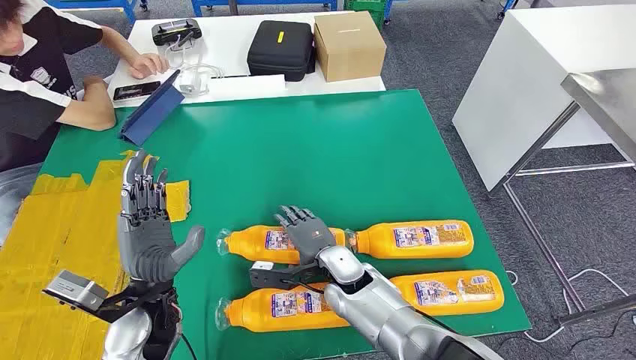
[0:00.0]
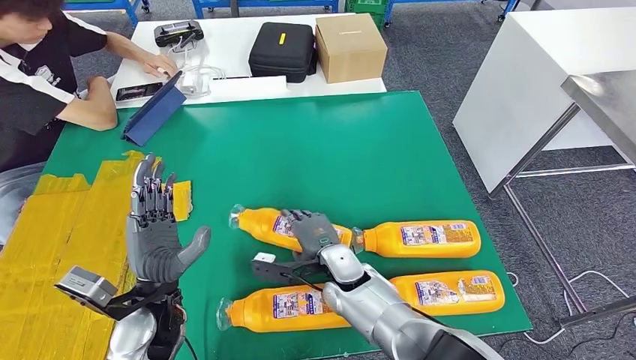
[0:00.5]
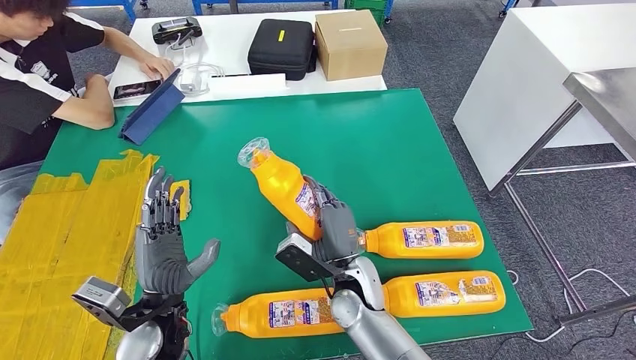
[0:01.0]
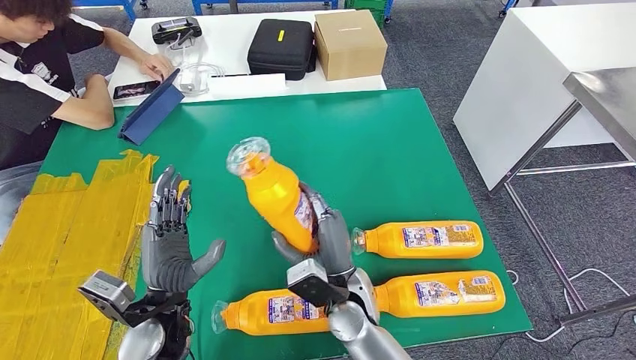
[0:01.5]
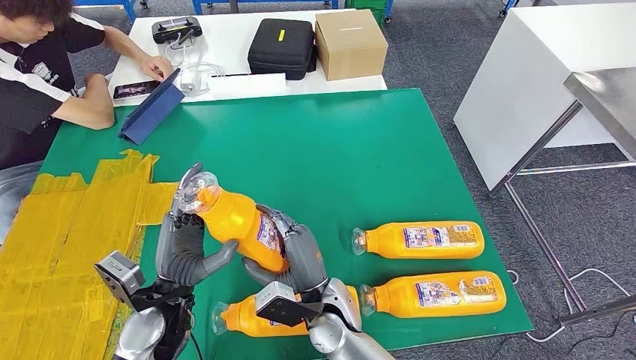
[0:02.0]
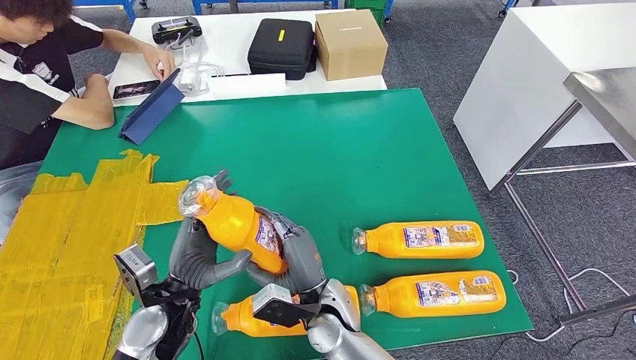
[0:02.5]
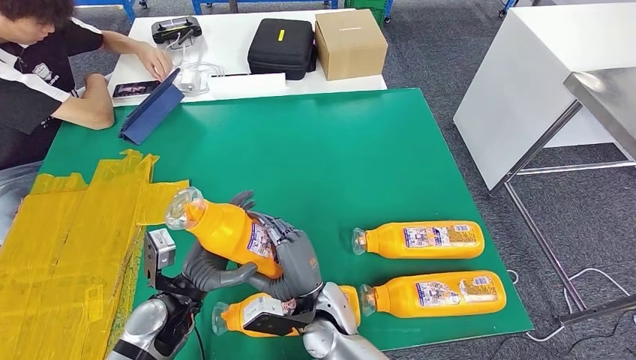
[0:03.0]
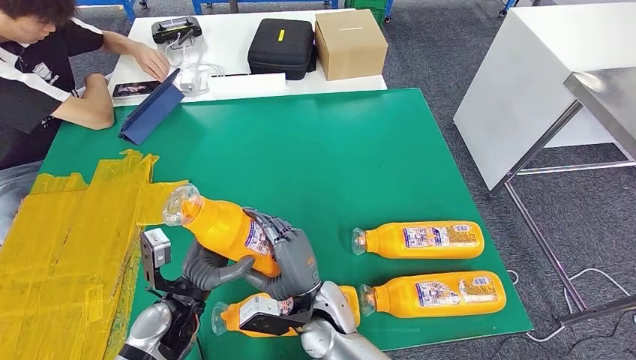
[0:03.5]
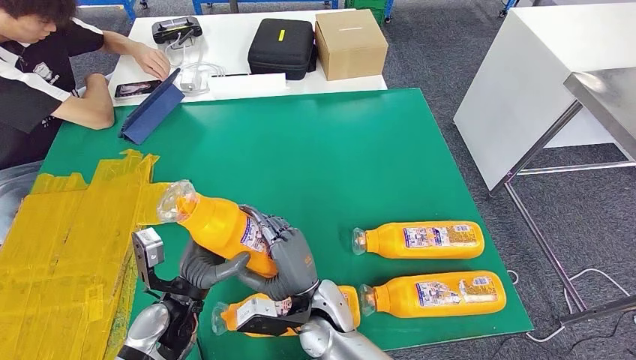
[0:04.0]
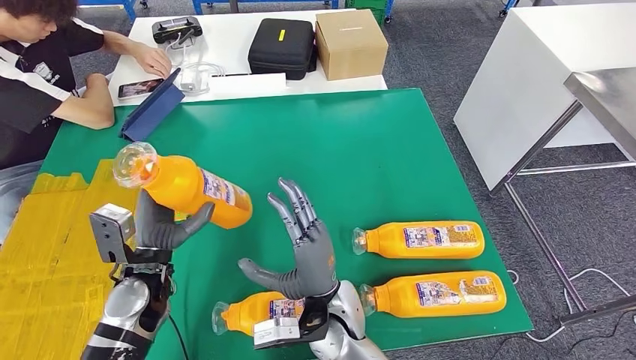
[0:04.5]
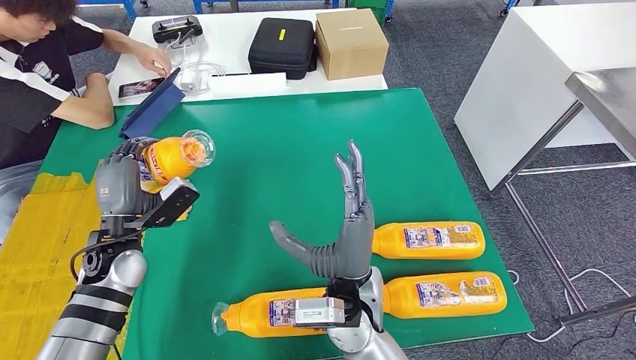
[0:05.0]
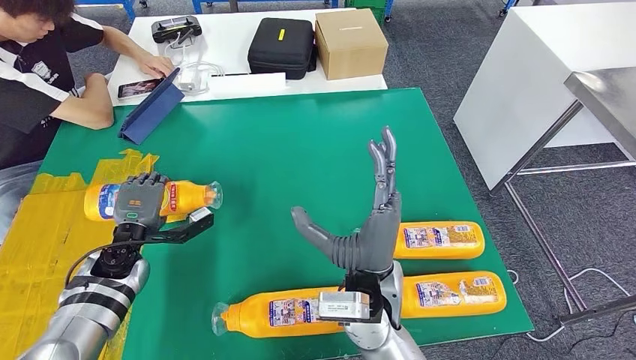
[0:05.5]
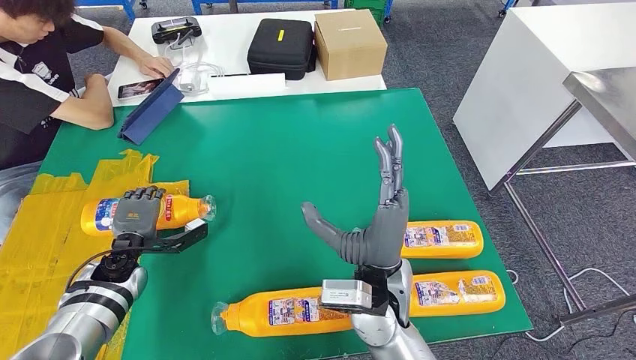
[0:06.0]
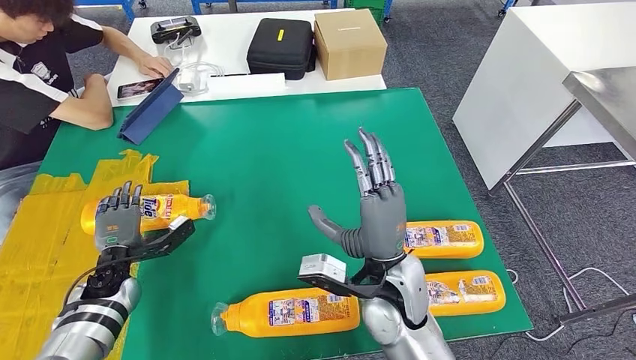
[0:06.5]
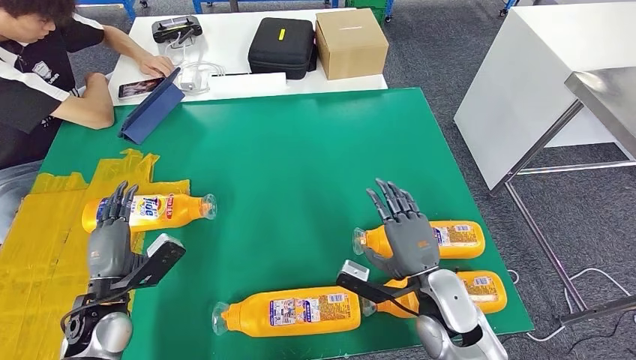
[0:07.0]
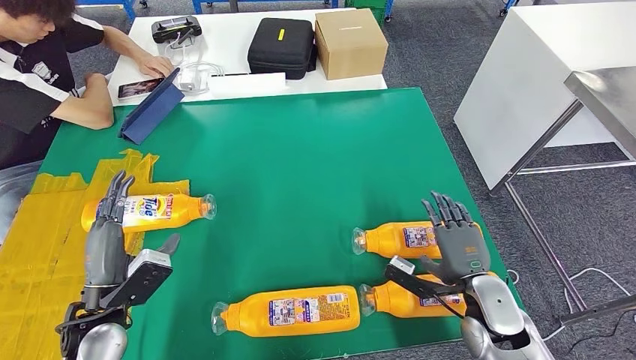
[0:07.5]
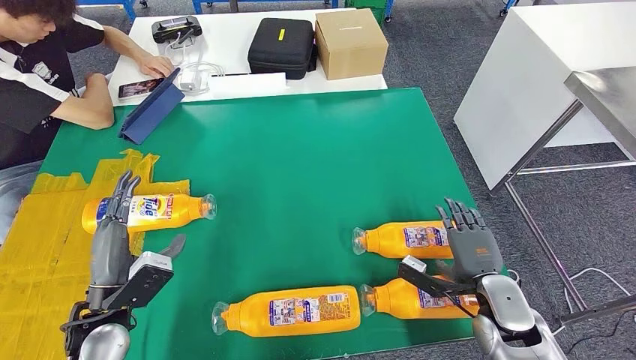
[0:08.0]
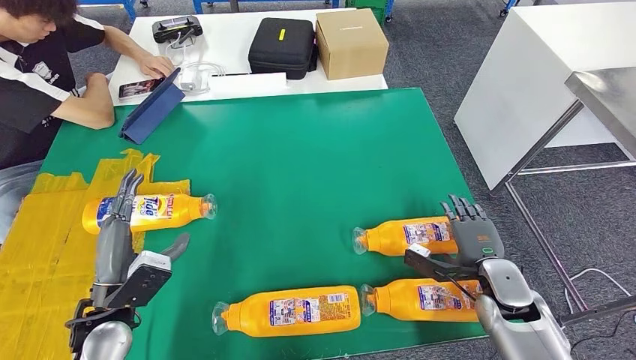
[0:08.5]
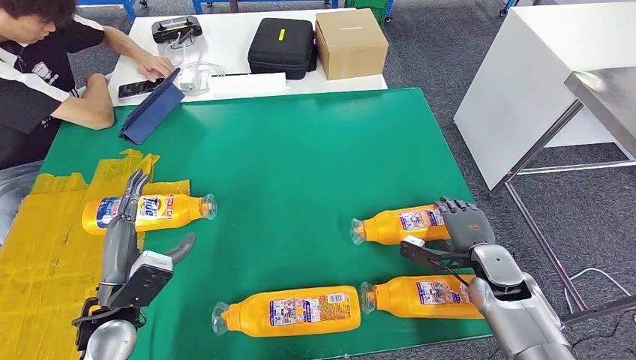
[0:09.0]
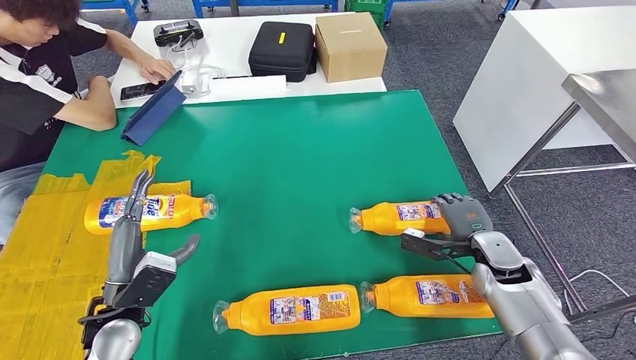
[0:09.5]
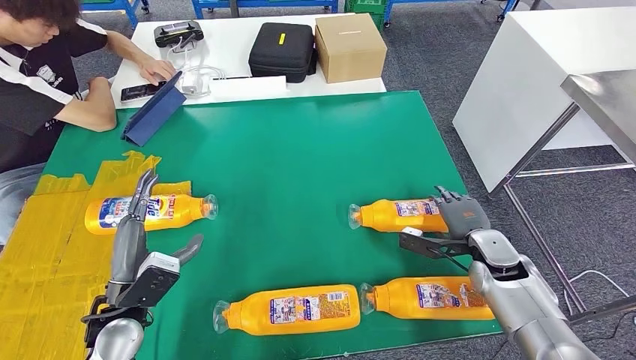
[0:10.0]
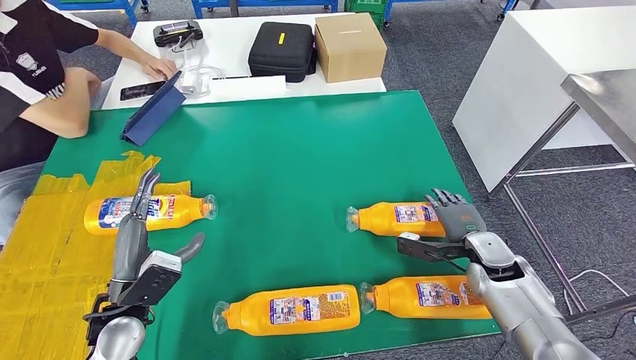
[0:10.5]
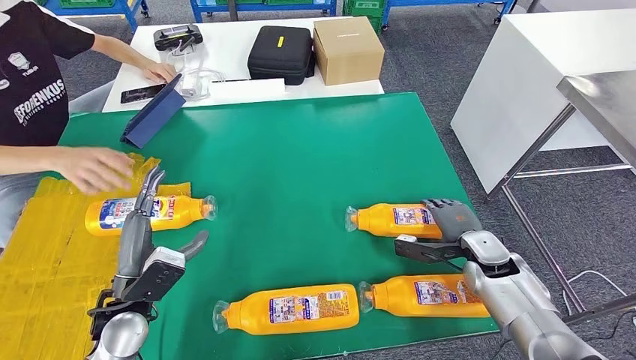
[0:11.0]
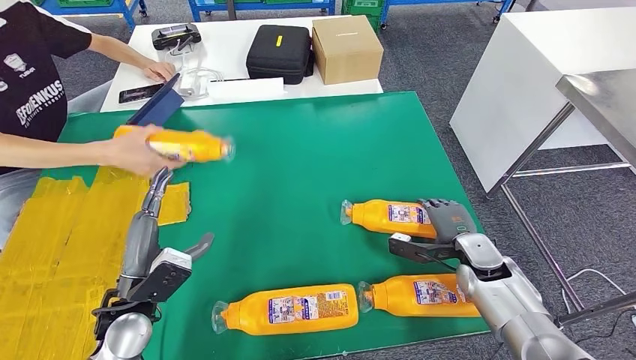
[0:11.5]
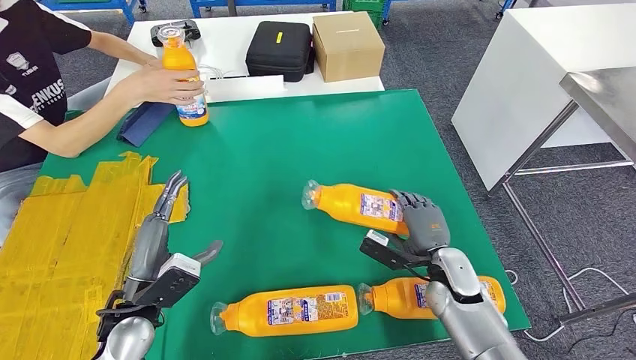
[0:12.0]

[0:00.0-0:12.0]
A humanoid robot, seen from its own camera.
Step, 0:00.0 to 0:02.0: Take the fast-moving consumer goods bottle from the table.
Step, 0:02.5 to 0:07.5: Flip the fast-moving consumer goods bottle to the front side.
0:04.0 to 0:06.0: The left hand travels to the left and forward by roughly 15 cm; the right hand shifts roughly 15 cm upward and to the right.
0:06.0 to 0:08.0: The left hand moves backward and upward, some 15 cm. Meanwhile the right hand is displaced to the right and downward by some 25 cm.

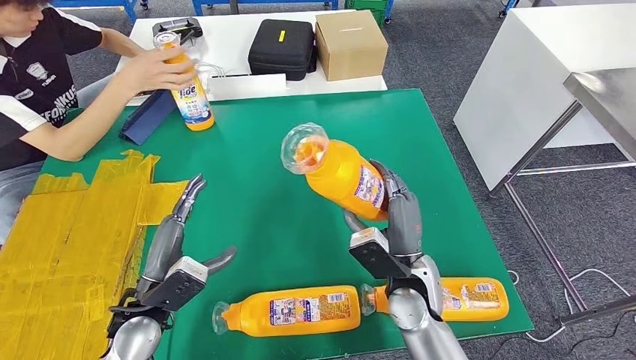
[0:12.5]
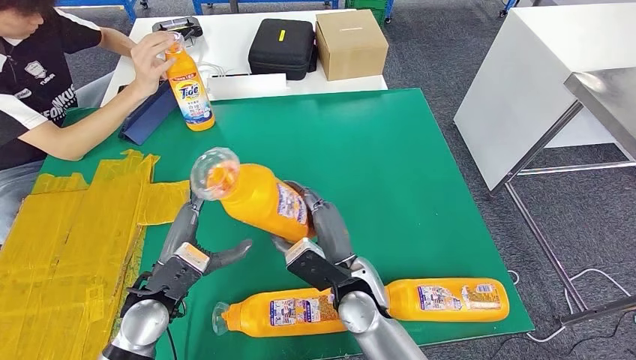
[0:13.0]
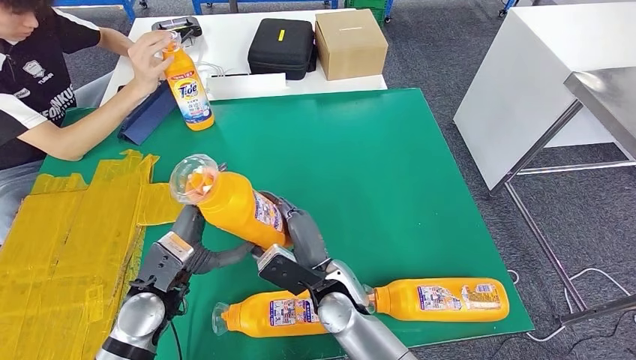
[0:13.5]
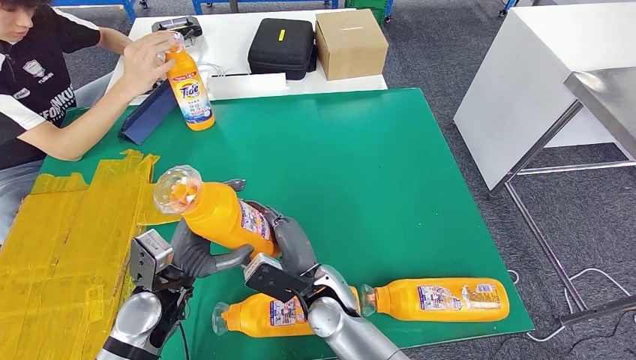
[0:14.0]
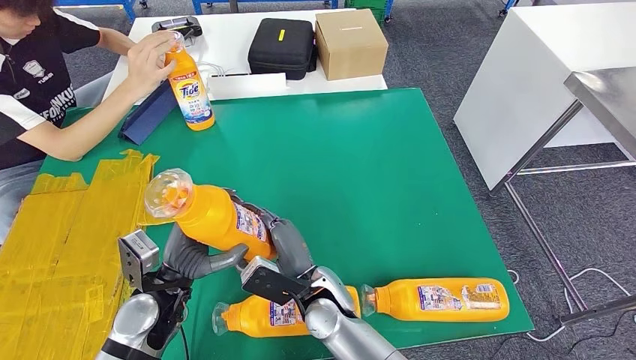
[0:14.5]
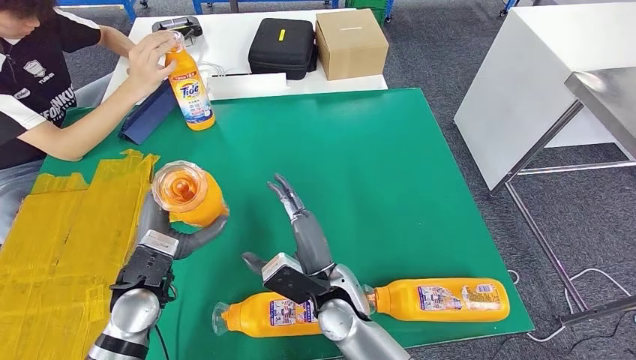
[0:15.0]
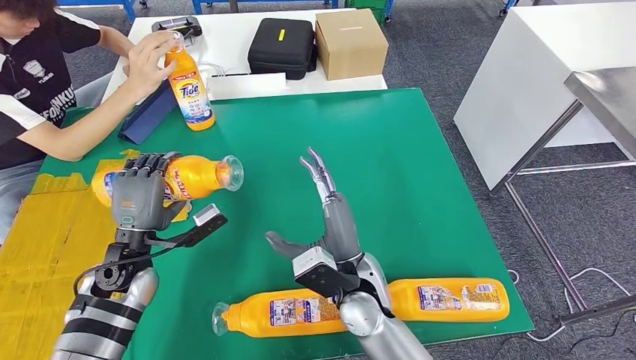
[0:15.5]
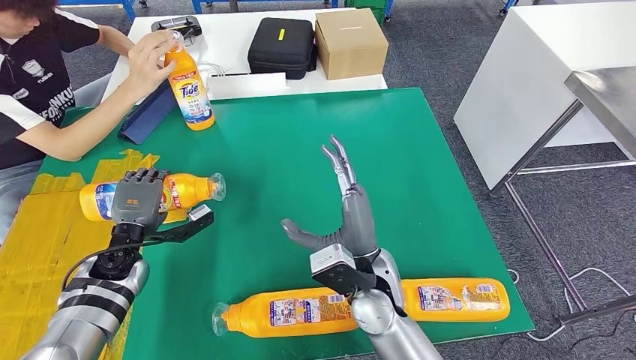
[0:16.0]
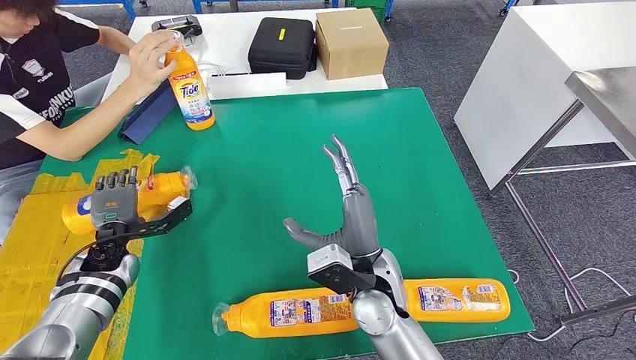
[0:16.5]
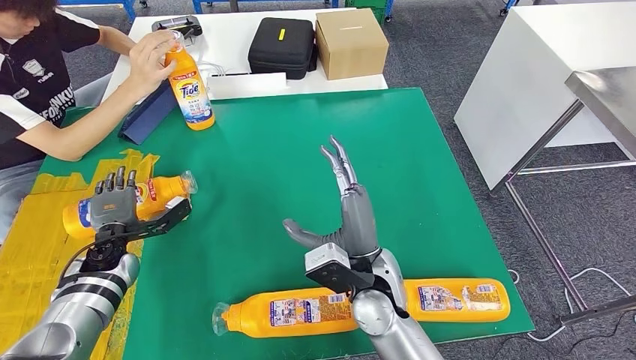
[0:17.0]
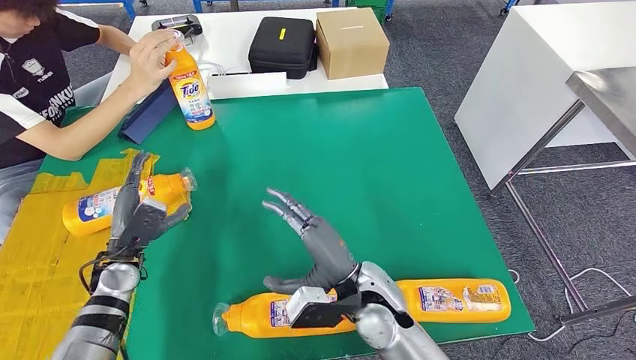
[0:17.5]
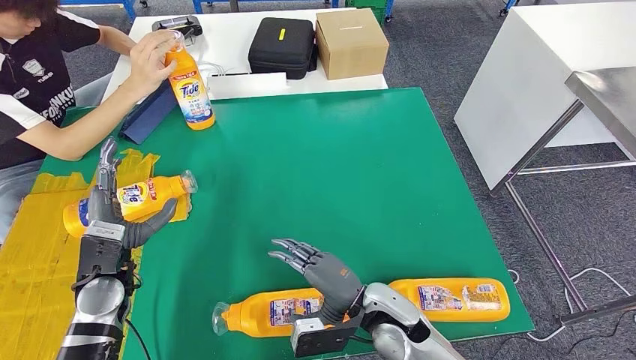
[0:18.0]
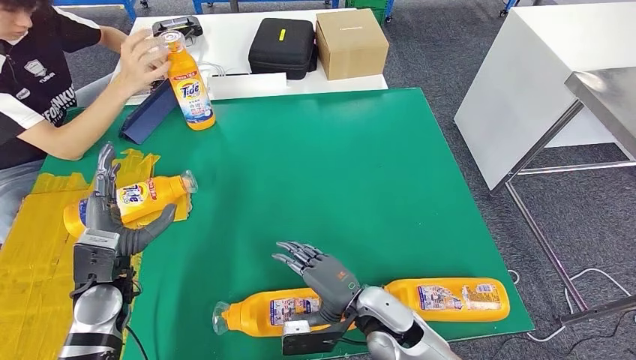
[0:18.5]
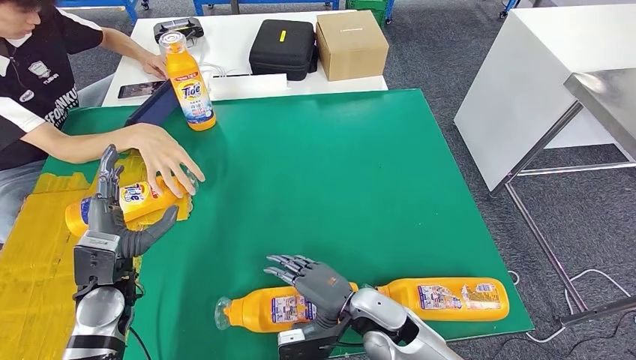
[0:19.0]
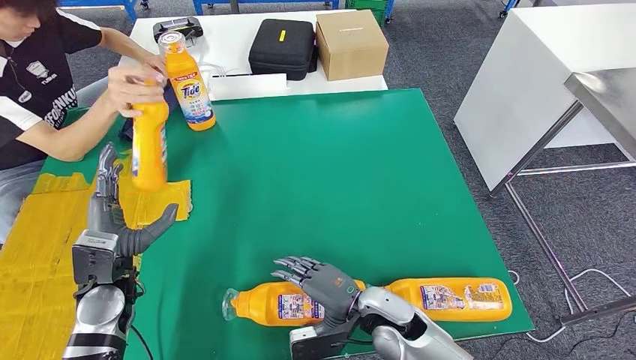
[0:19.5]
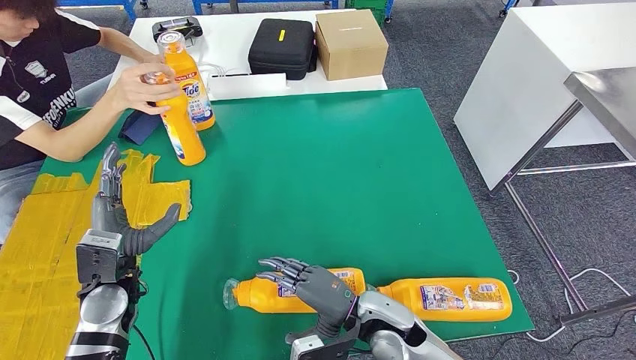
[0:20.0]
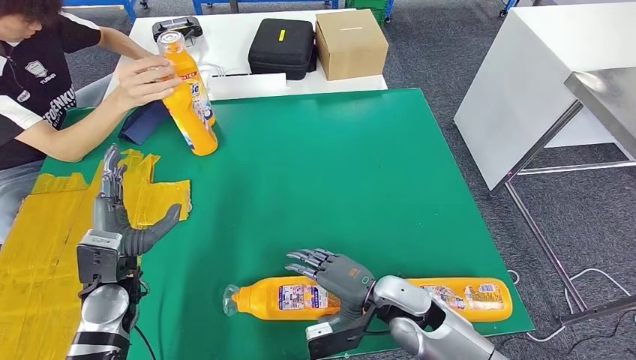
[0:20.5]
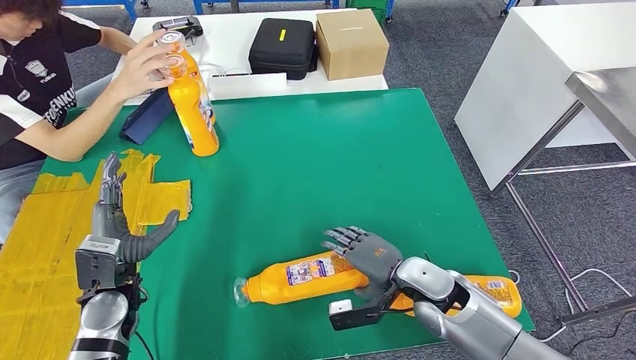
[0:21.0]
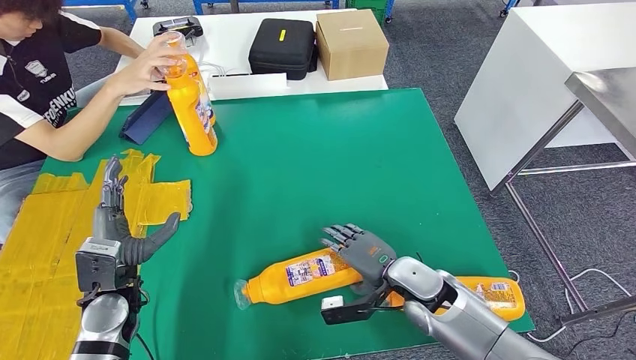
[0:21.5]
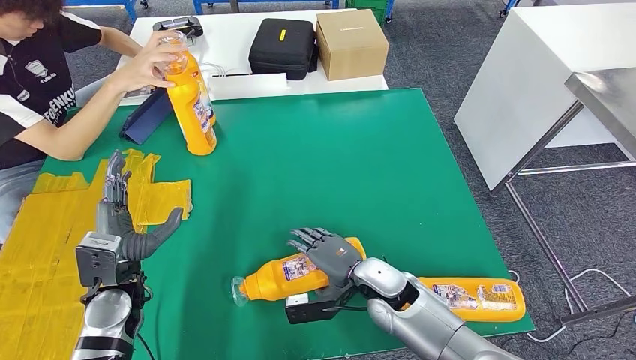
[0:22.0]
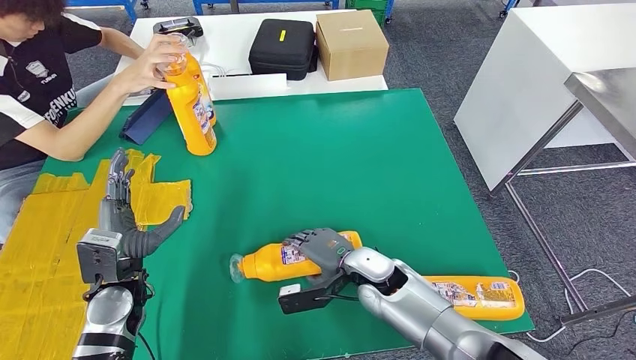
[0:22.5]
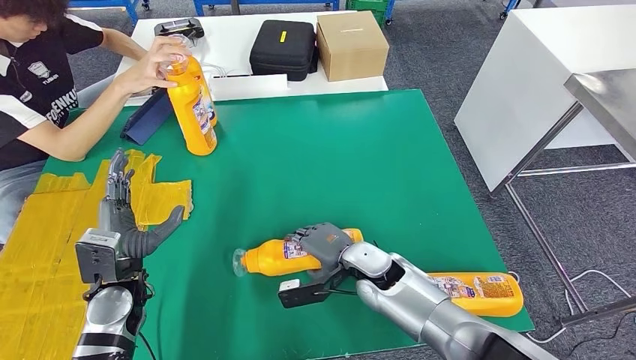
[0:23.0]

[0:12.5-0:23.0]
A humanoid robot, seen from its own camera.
Step, 0:12.5 to 0:17.5: Flip the fast-moving consumer goods bottle to the front side.
0:12.5 to 0:14.5: The right hand travels to the left by some 15 cm.
0:14.5 to 0:16.5: The right hand shifts approximately 10 cm to the right and upward, while the left hand shifts roughly 20 cm to the left and forward.
0:21.0 to 0:23.0: The right hand shifts approximately 10 cm to the left.
